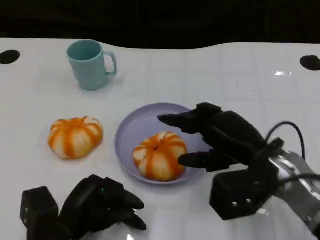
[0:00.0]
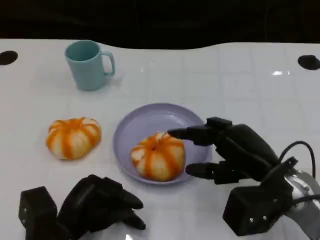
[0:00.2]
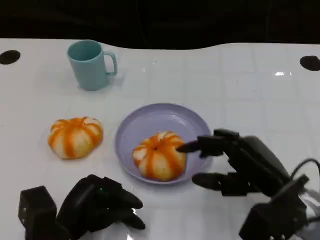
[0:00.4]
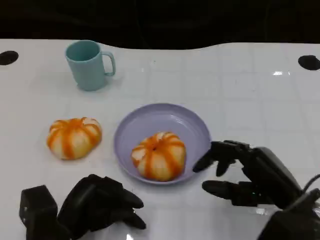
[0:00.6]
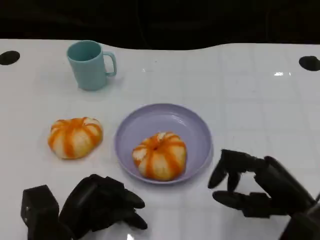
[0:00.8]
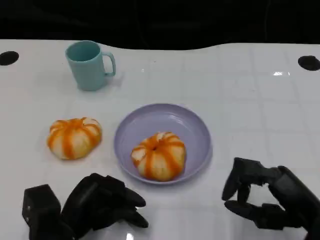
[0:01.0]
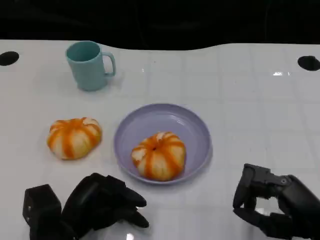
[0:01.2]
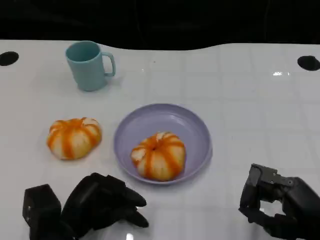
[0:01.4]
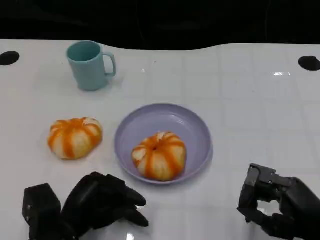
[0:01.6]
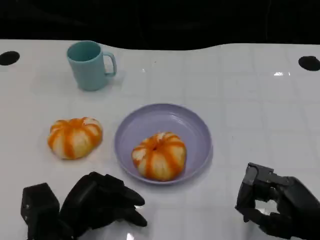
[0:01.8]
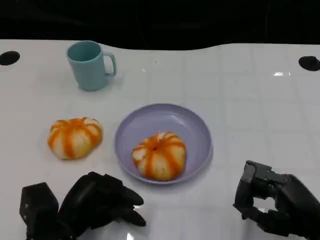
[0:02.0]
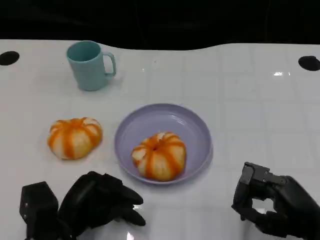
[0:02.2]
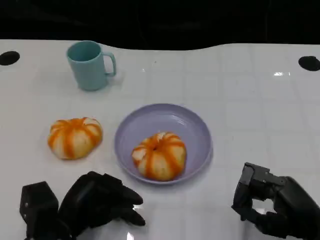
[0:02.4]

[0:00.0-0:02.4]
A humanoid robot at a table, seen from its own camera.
Task of the whole recording: Grasp the bread from the table and place it into the plate.
0:00.0 to 0:01.2: The right hand shifts approximately 15 cm backward and to the right.
0:01.2 to 0:02.4: The hands stay close to where they were, moving slightly.

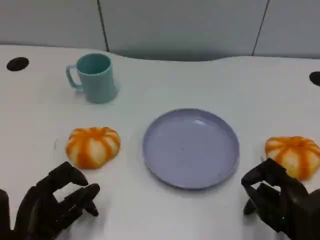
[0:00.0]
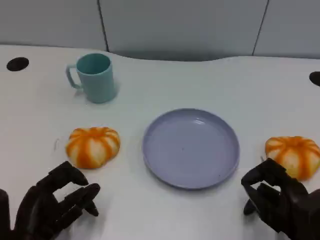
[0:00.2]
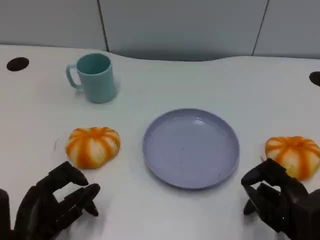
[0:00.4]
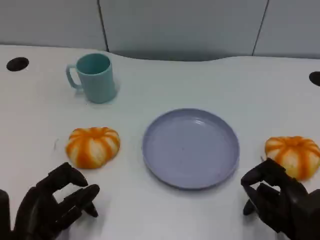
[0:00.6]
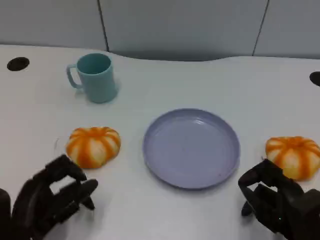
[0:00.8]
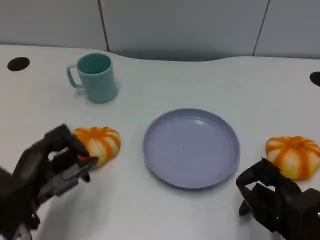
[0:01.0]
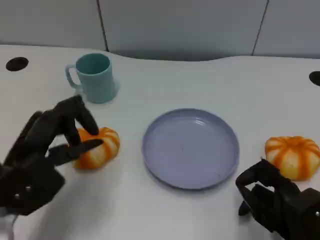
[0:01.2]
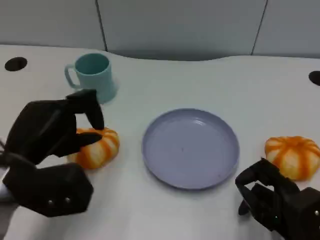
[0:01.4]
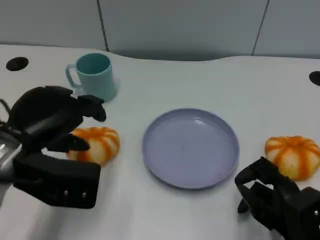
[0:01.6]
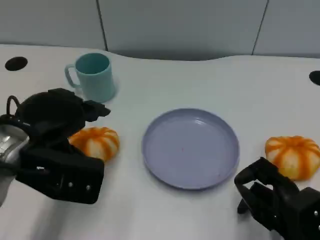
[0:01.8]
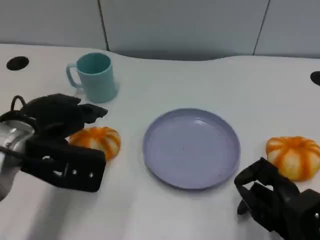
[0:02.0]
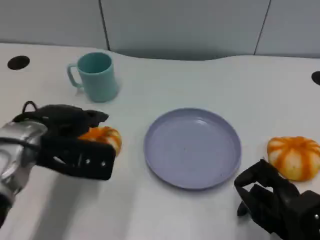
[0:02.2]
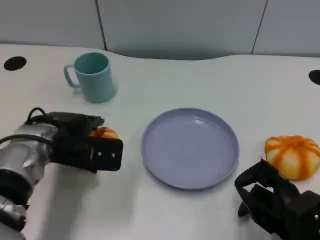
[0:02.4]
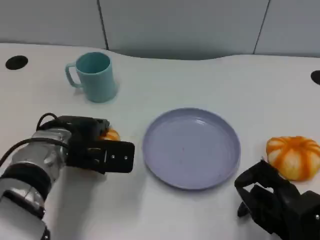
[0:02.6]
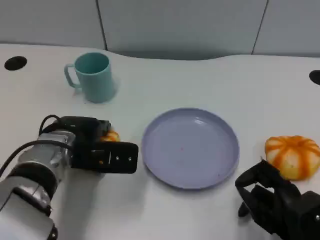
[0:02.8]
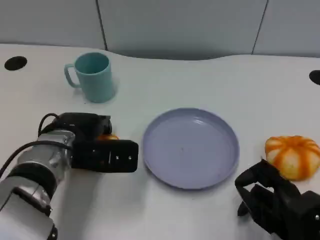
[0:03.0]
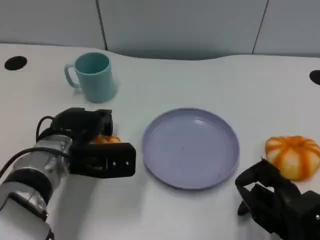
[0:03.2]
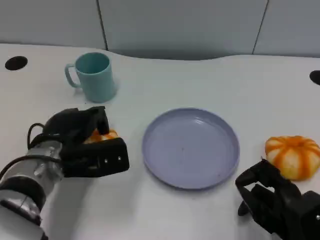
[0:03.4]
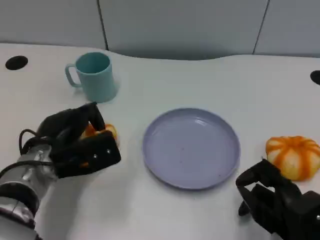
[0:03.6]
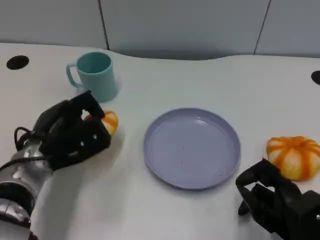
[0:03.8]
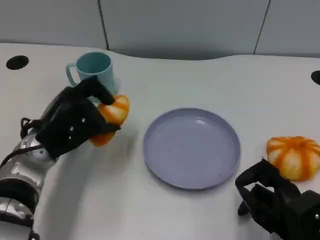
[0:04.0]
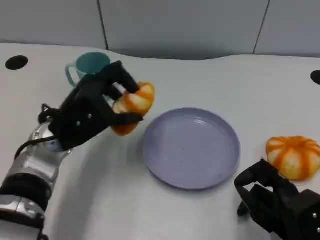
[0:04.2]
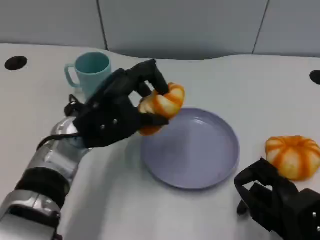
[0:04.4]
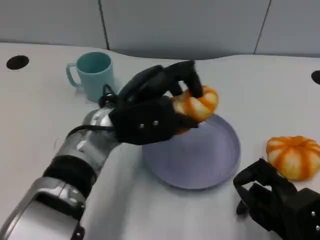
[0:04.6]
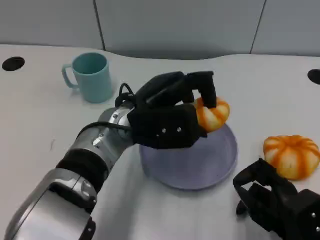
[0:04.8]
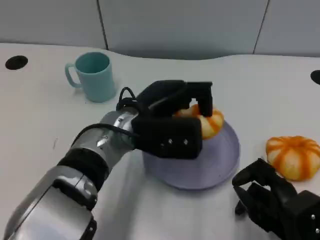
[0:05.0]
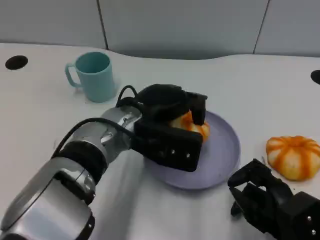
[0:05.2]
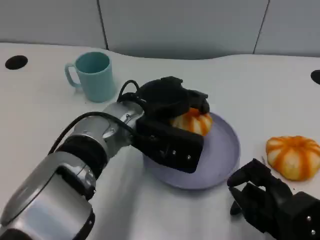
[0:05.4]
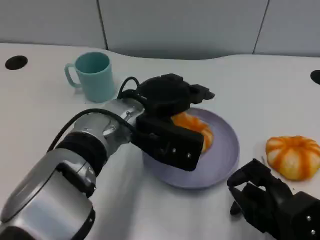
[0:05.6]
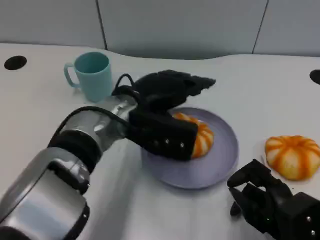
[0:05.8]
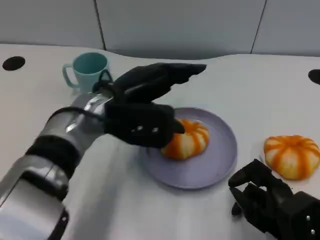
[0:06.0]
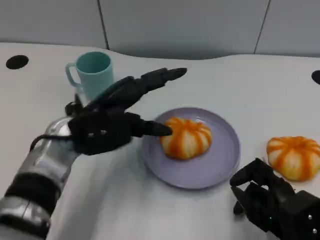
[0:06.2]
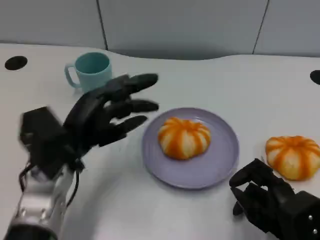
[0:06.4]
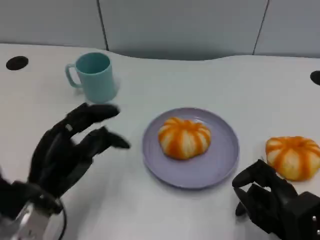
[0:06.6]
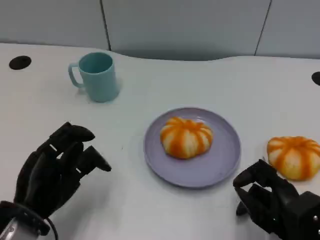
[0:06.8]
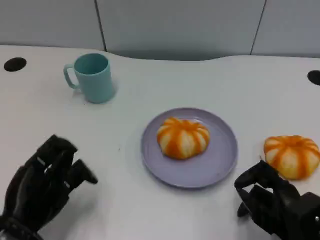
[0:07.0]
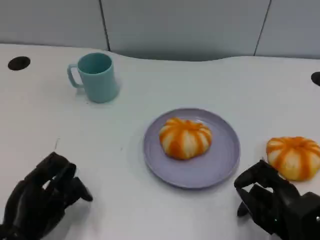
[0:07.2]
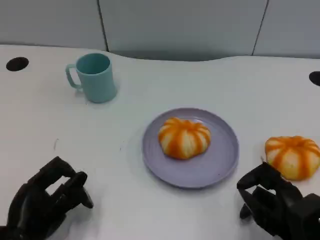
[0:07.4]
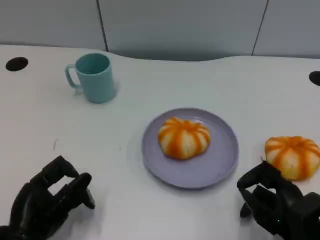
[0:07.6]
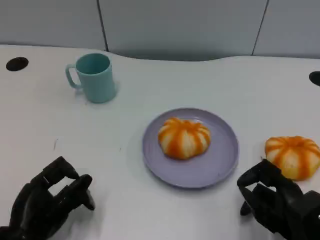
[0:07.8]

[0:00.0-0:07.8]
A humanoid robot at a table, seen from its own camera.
Task of the whole recording: Grasp the bread from the table and place it into the plate.
0:00.0 to 0:01.6: The left hand travels upward and forward by approximately 15 cm.
0:01.6 to 0:03.2: The left hand goes some 10 cm downward and forward.
0:03.2 to 0:04.6: The left hand travels to the right and upward by about 10 cm.
0:04.6 to 0:06.2: The left hand is displaced to the left by approximately 5 cm.
0:06.2 to 0:07.8: The left hand is displaced backward, downward and to the left by roughly 20 cm.

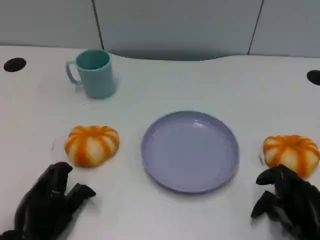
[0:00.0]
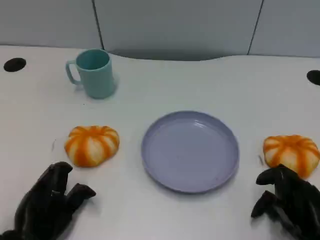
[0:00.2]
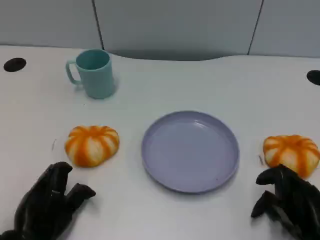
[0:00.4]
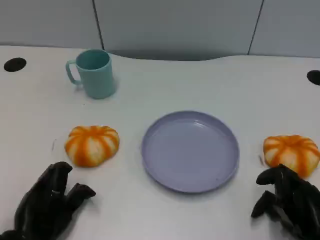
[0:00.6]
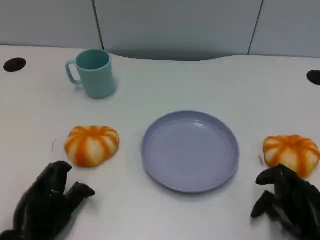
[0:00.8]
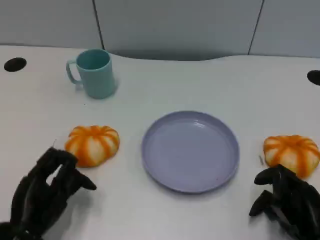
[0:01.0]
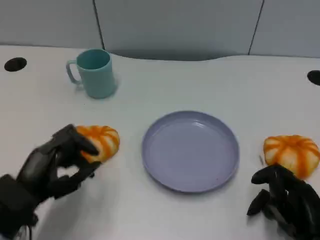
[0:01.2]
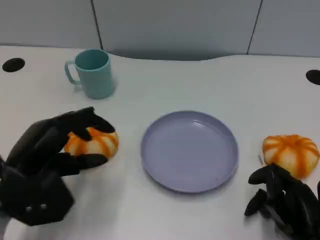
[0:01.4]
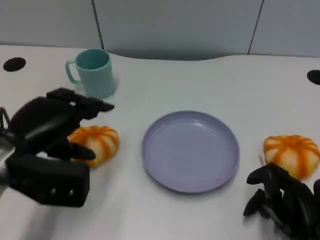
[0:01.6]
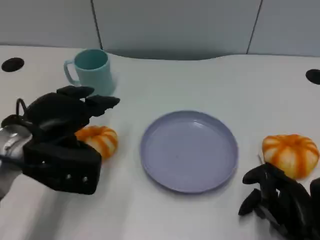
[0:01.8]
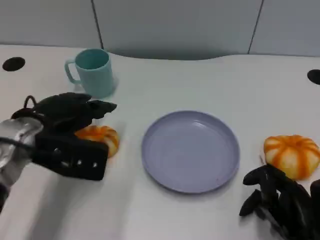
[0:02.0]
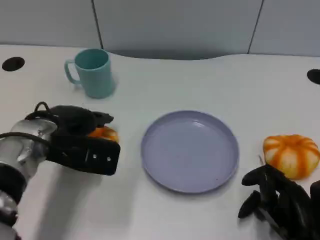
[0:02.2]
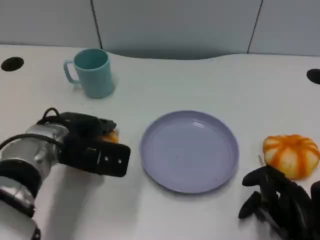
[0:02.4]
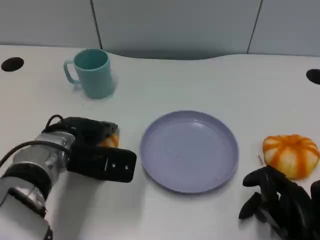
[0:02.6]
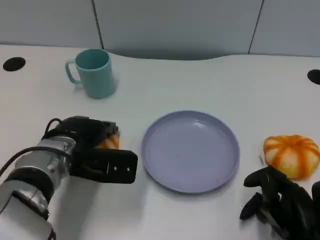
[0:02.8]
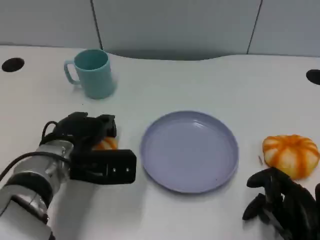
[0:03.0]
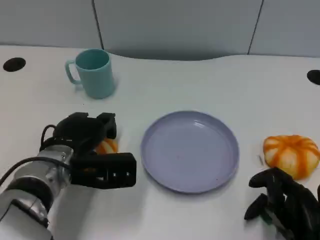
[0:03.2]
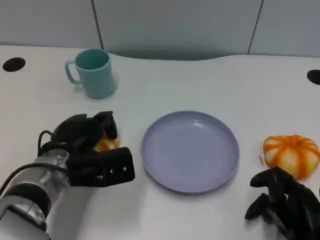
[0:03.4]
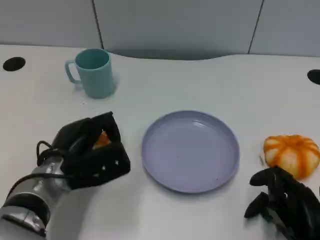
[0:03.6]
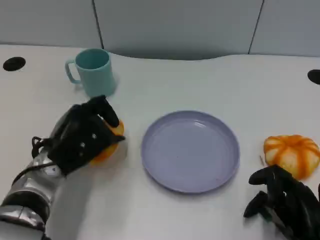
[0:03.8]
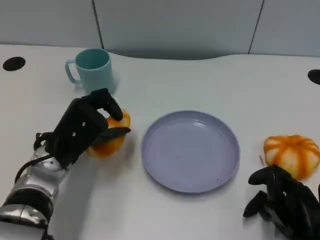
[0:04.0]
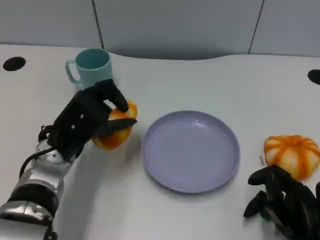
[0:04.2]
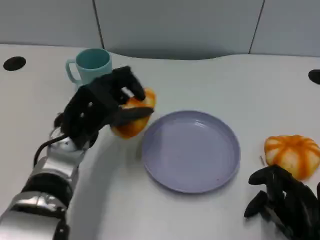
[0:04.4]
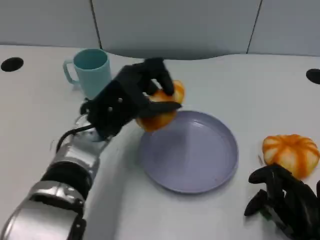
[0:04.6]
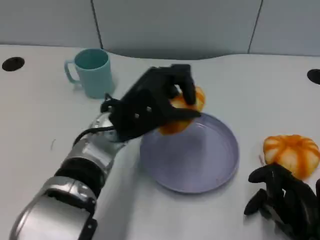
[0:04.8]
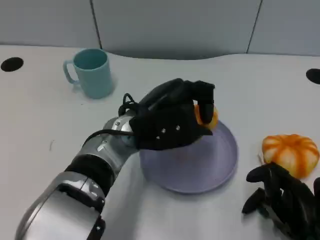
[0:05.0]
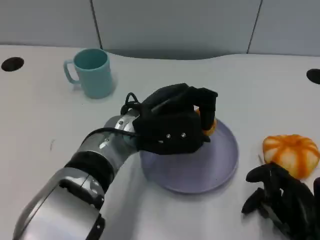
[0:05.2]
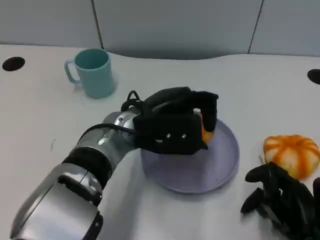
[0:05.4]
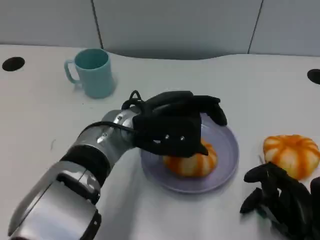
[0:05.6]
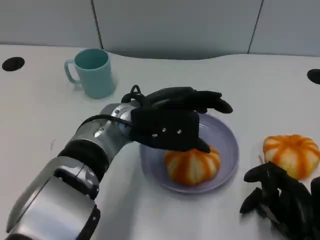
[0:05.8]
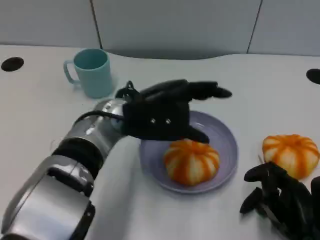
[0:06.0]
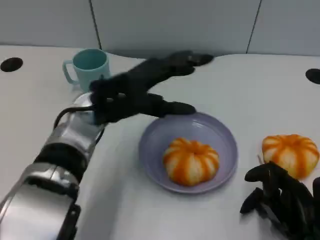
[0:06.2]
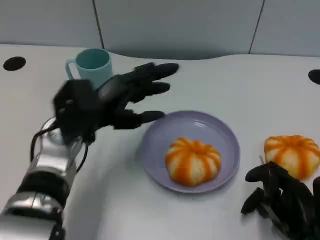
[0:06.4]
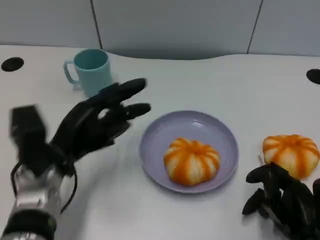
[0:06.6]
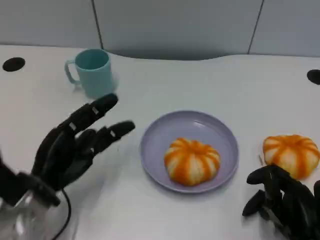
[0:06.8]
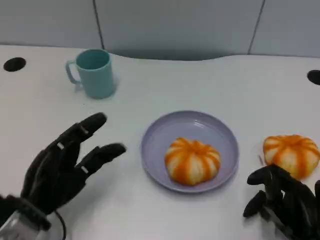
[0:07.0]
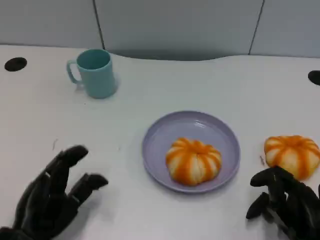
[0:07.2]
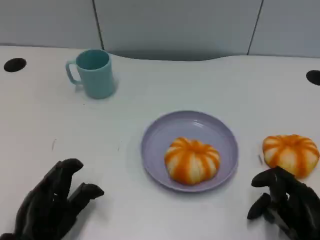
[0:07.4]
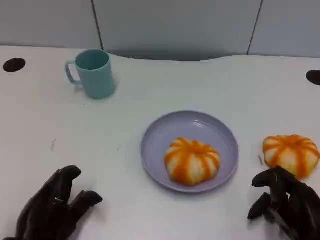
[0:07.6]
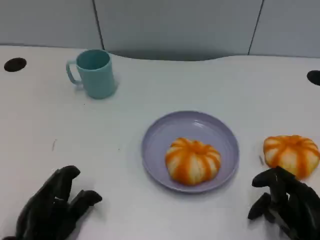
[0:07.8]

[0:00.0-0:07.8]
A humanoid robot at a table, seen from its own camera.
Task of the whole recording: Grasp the bread from the table and place it into the plate.
0:00.0 to 0:01.6: The left hand shifts roughly 15 cm upward and forward.
0:01.6 to 0:03.2: The left hand is displaced downward and to the right by roughly 10 cm.
0:03.2 to 0:04.6: The left hand moves to the right and upward, approximately 10 cm.
0:06.2 to 0:07.8: The left hand moves backward, downward and to the left, about 25 cm.

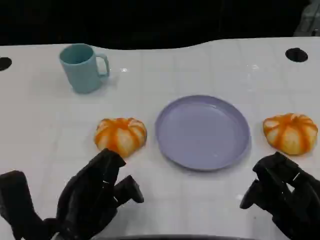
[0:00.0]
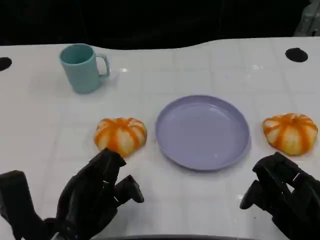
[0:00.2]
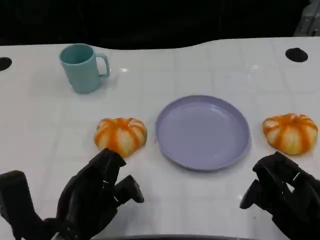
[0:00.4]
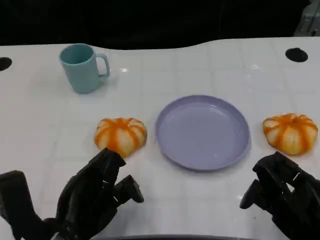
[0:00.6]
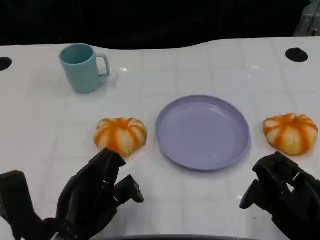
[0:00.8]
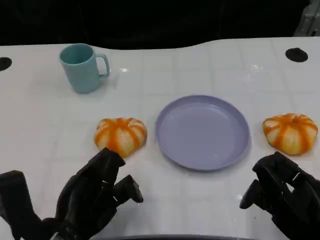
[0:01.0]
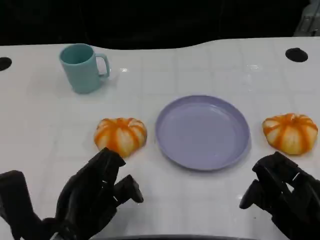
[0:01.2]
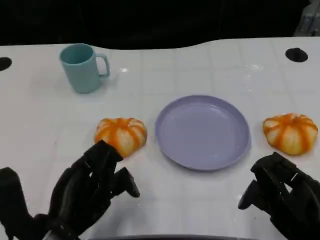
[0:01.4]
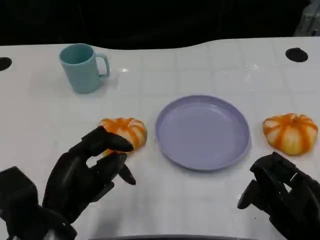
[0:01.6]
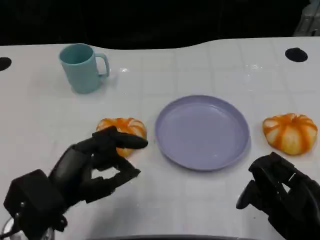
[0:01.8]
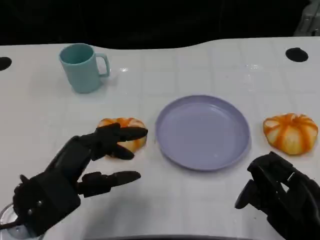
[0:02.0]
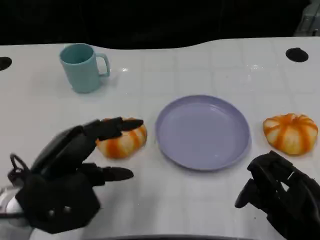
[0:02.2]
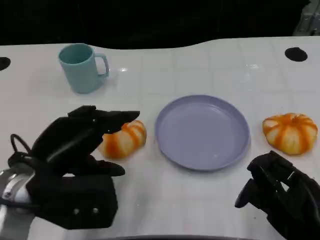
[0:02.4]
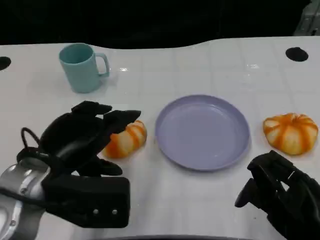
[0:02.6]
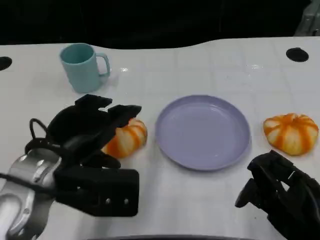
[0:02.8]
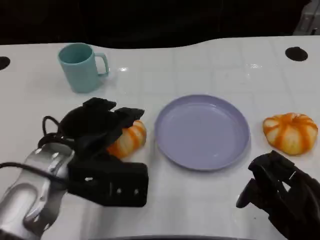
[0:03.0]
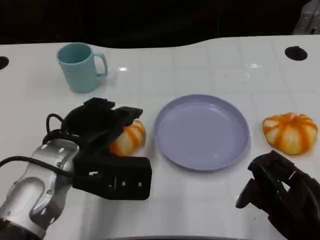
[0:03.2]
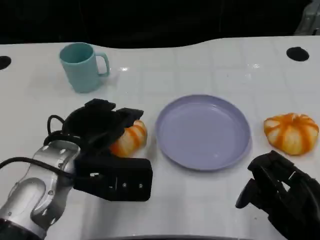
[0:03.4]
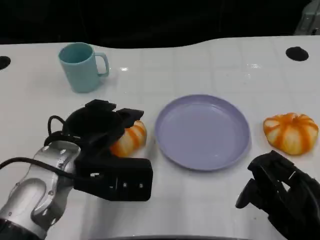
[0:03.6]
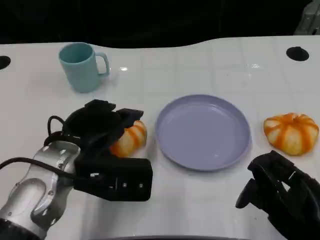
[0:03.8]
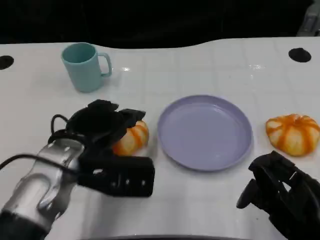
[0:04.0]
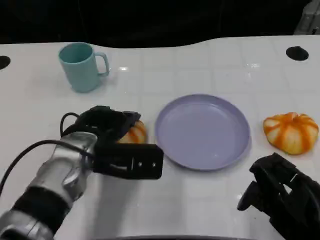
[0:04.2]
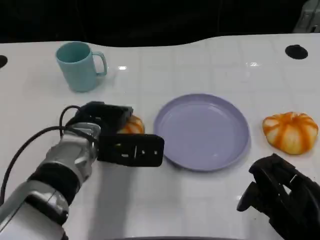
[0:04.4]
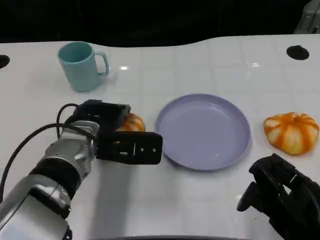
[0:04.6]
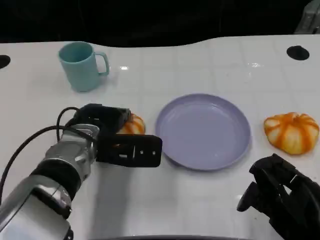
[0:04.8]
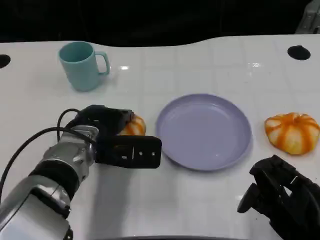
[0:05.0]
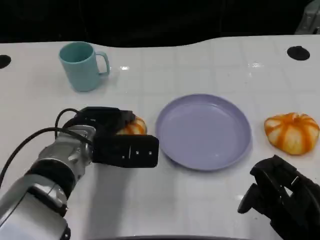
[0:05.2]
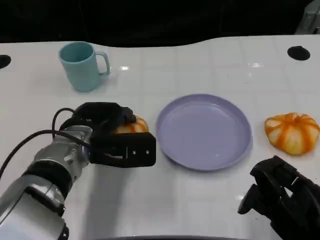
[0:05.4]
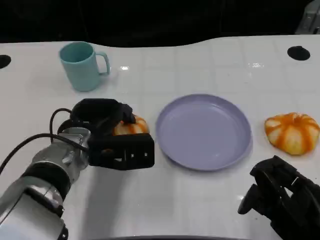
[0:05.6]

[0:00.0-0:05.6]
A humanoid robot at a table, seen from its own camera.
Task of the whole recording: Grasp the bread from the table and place it into the plate.
0:00.0 to 0:01.4: The hands make only small movements.
0:01.4 to 0:02.8: The left hand moves upward and forward, approximately 10 cm.
0:02.8 to 0:04.2: The left hand goes approximately 5 cm forward.
0:04.2 to 0:05.6: The hands move only a little.
